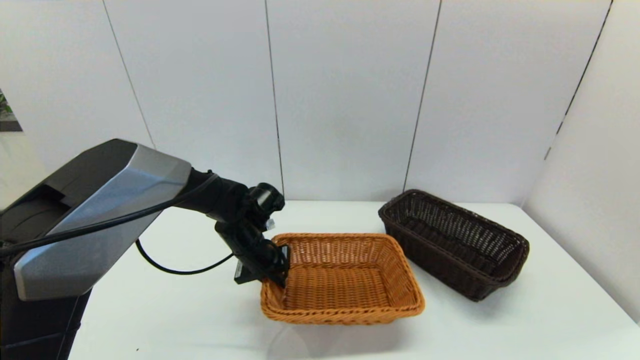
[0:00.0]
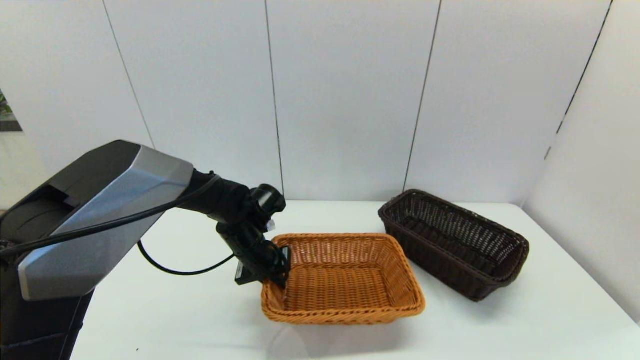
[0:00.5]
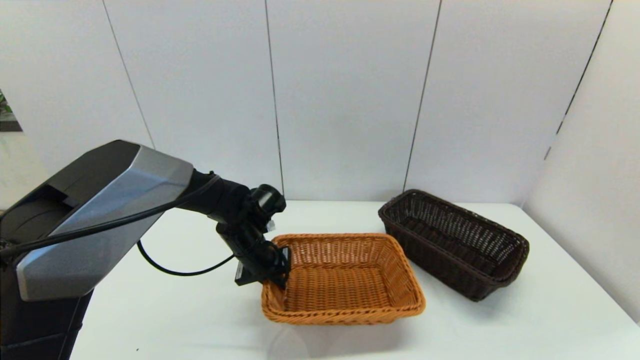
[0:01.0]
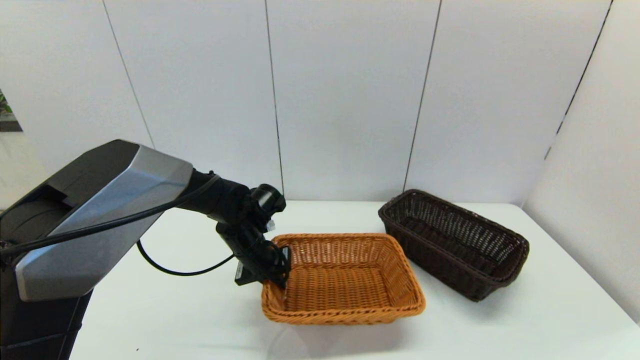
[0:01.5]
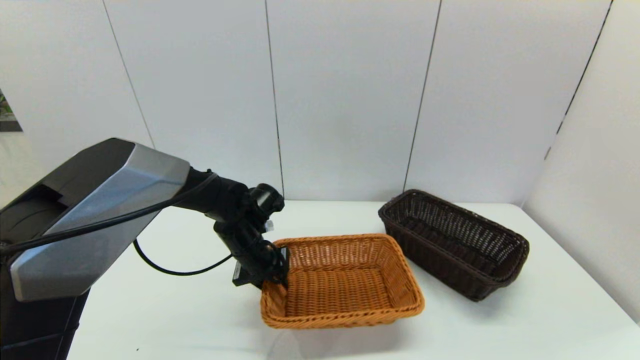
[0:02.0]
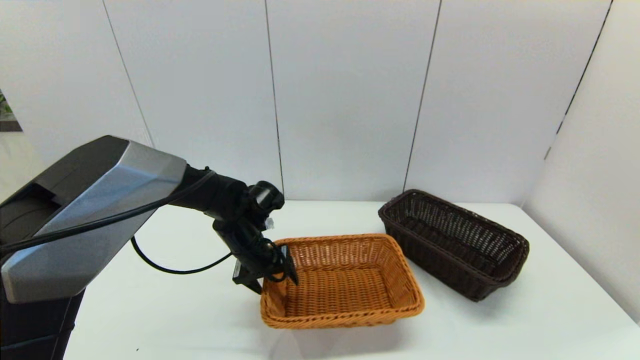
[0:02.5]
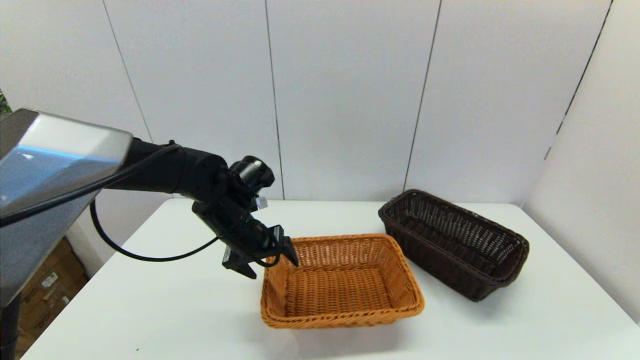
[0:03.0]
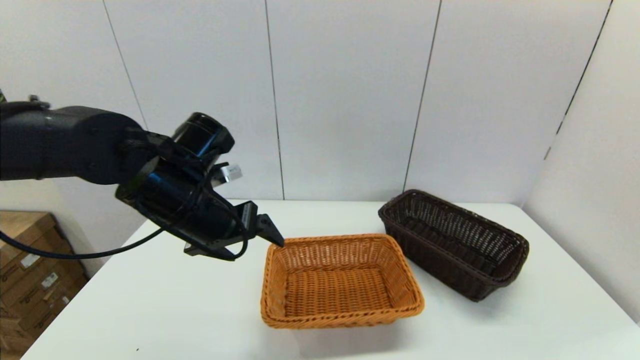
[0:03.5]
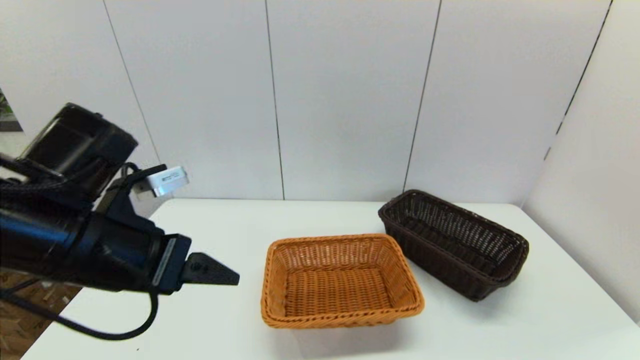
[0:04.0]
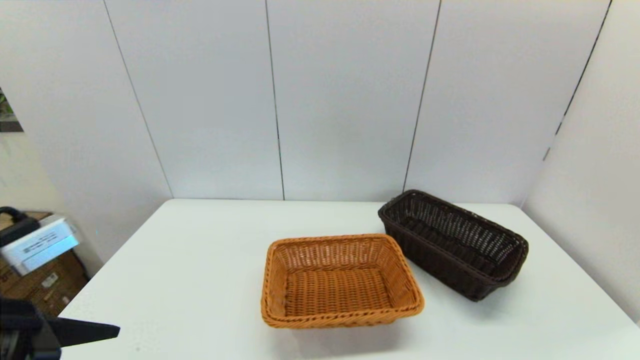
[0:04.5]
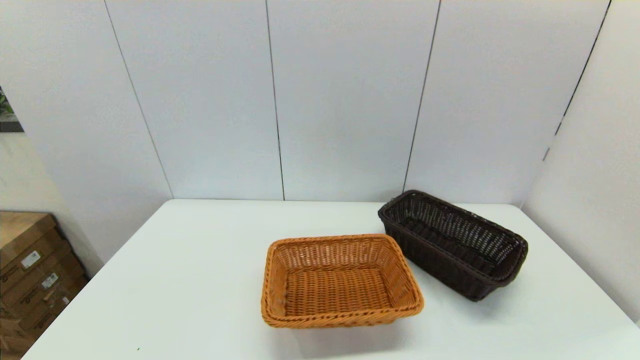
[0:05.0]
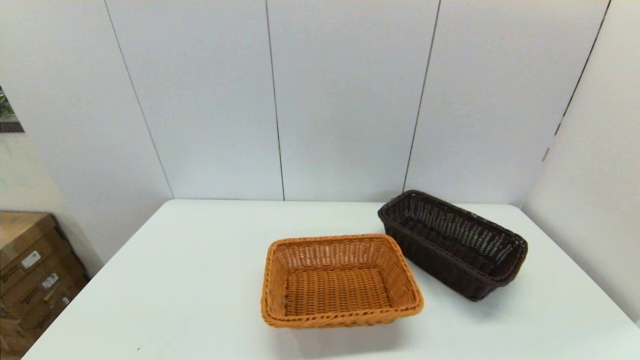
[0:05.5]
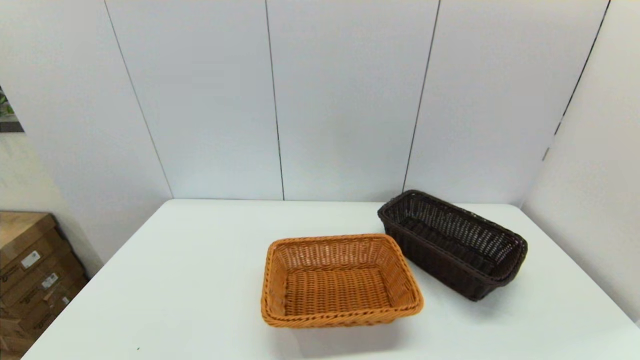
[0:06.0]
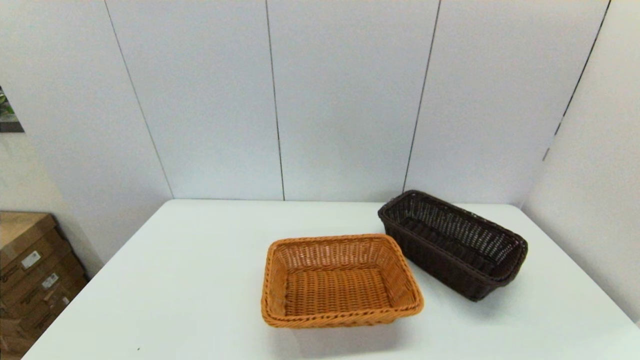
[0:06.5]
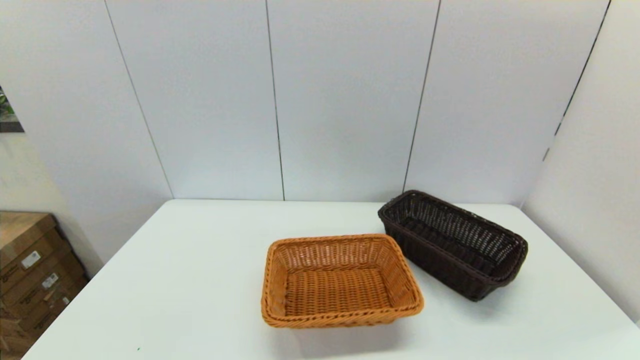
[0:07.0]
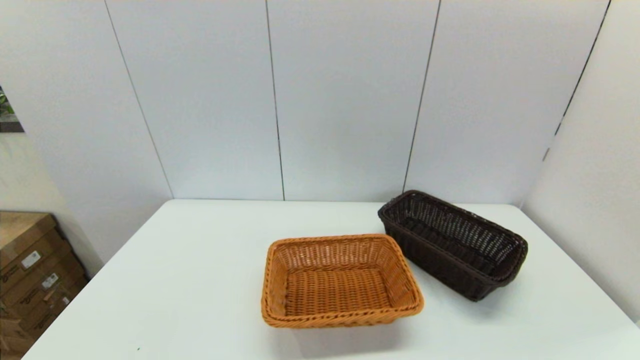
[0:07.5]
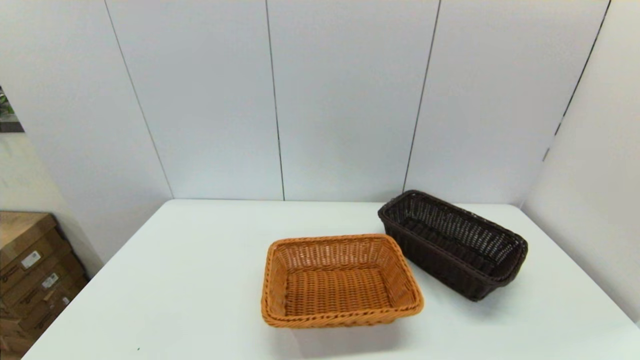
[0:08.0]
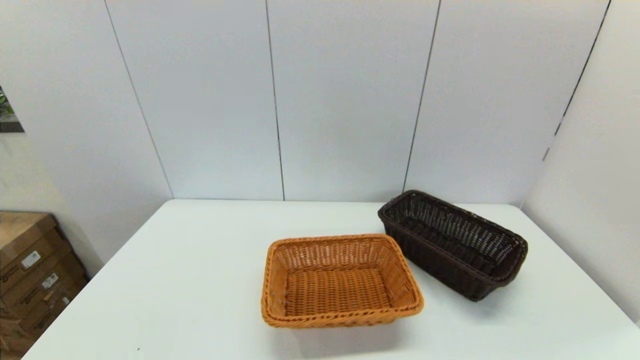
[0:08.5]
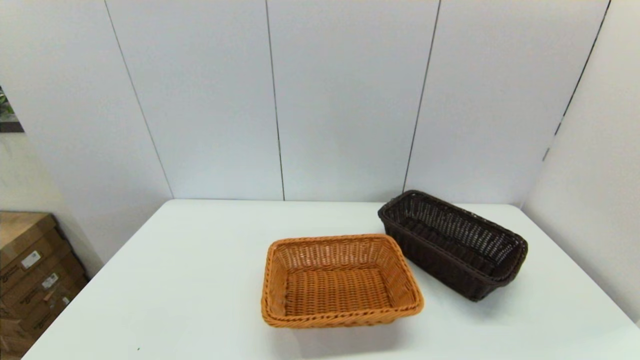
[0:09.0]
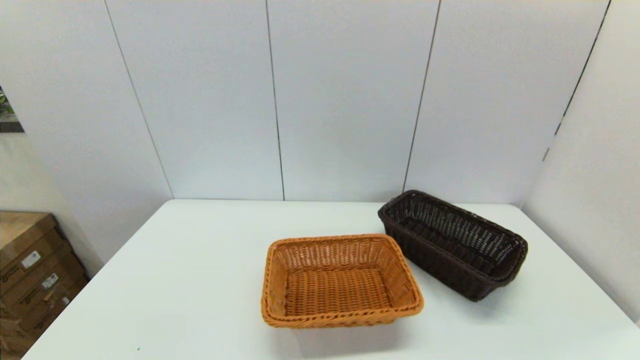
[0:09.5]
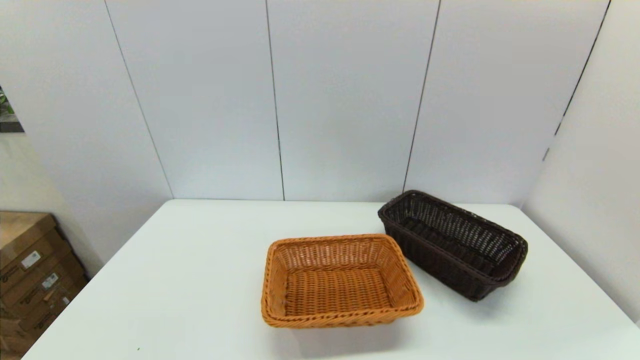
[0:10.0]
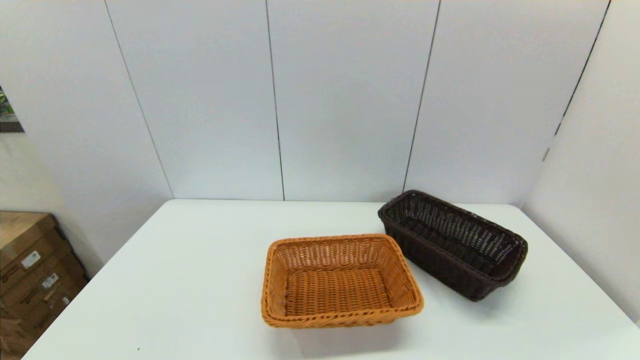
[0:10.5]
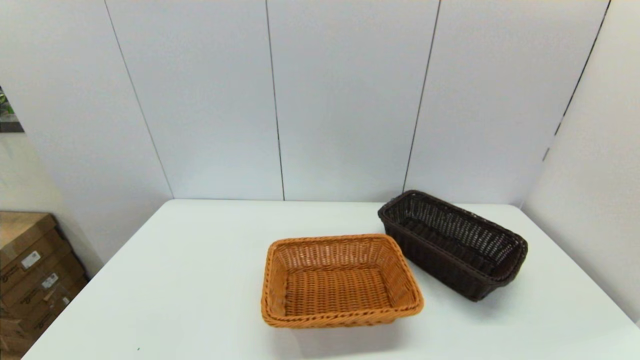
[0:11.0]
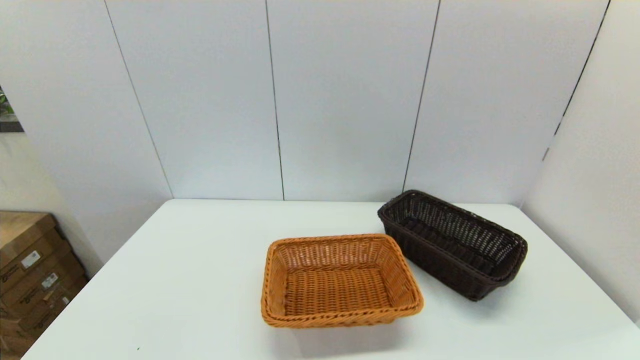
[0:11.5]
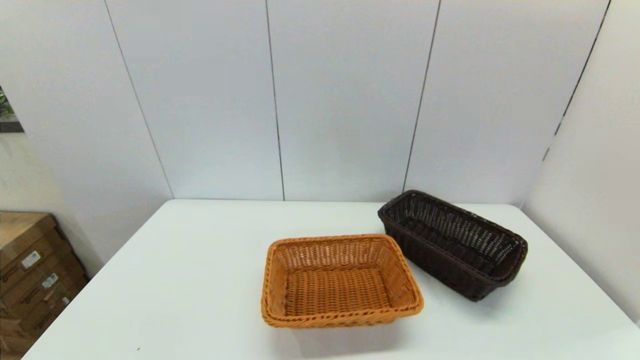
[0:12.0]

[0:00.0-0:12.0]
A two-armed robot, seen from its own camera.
Task of the whole recording: stack a basket on top of another basket.
Step, 0:00.0 to 0:03.0: Place the light basket on the middle of the table with the left gripper.
0:00.0 to 0:02.0: Neither gripper changes place.
0:02.0 to 0:04.0: The left gripper goes approximately 25 cm upward, backward and to the left, and opens up.
0:04.0 to 0:06.0: The left gripper moves backward and downward, some 25 cm.
0:08.0 to 0:10.0: Both grippers stay put.

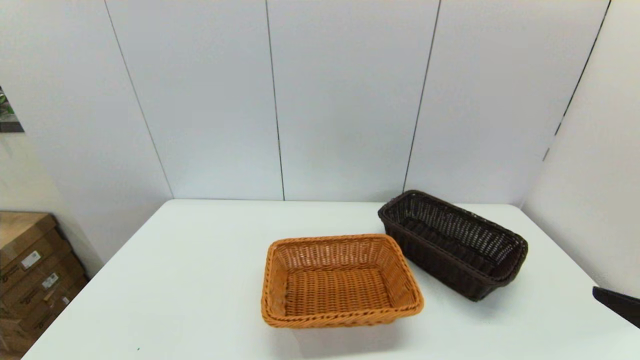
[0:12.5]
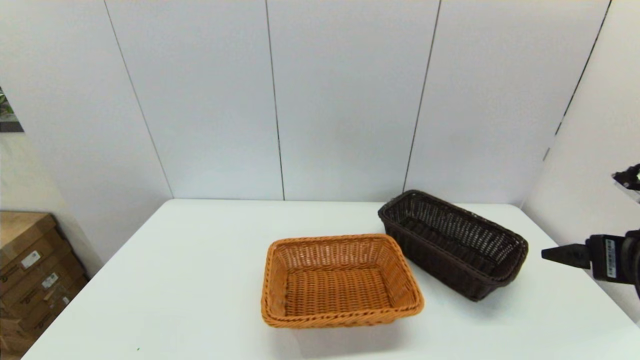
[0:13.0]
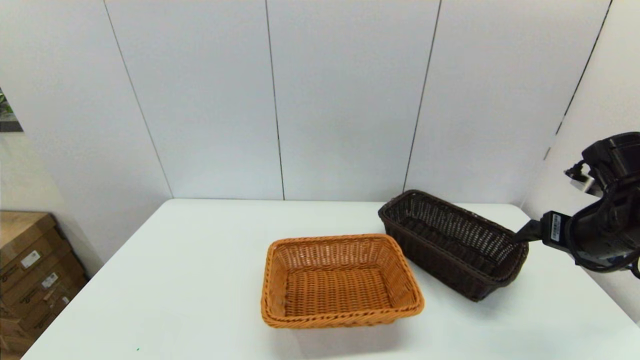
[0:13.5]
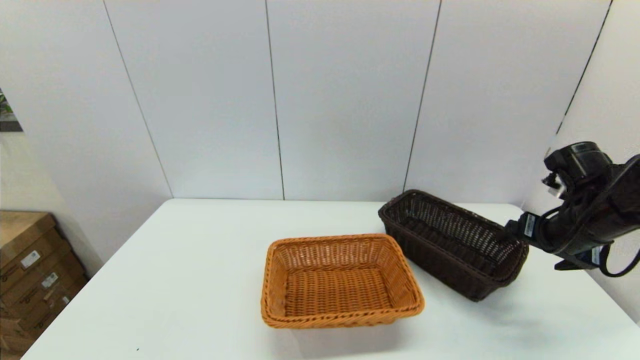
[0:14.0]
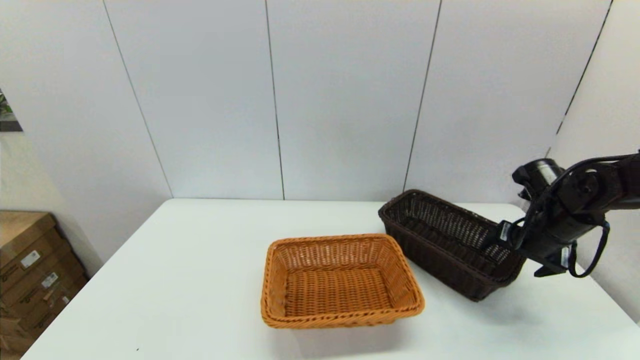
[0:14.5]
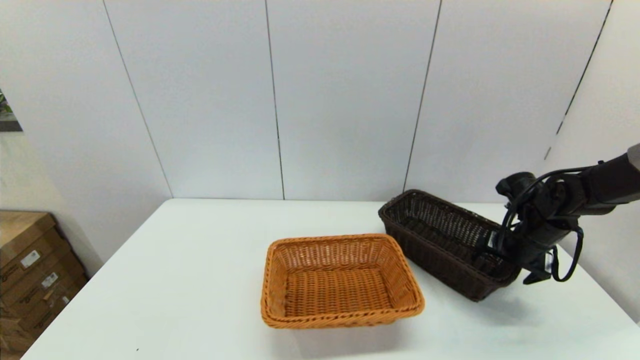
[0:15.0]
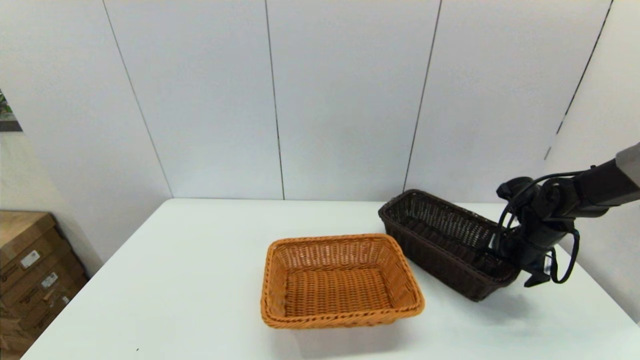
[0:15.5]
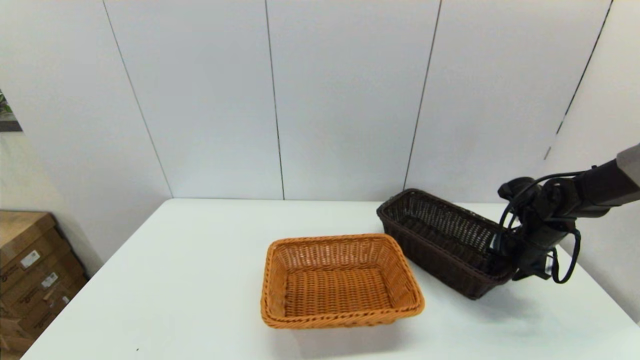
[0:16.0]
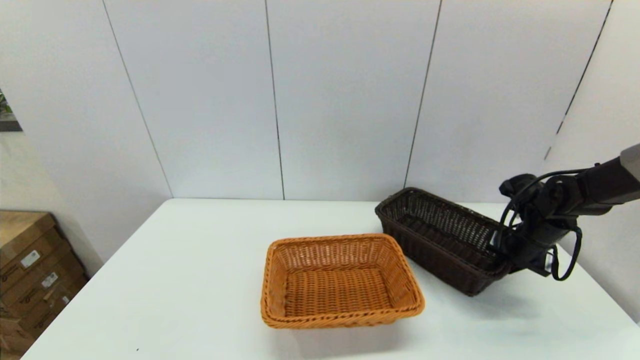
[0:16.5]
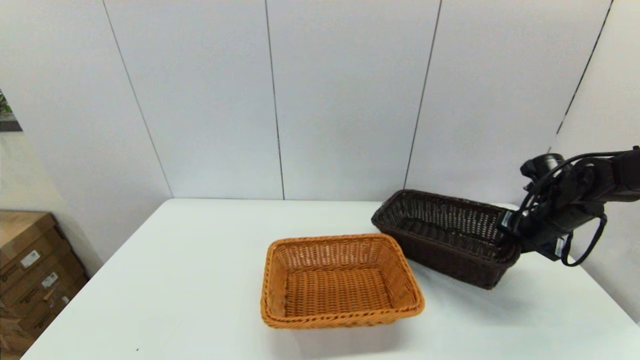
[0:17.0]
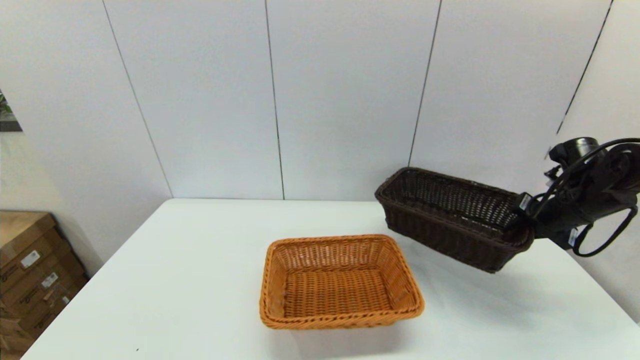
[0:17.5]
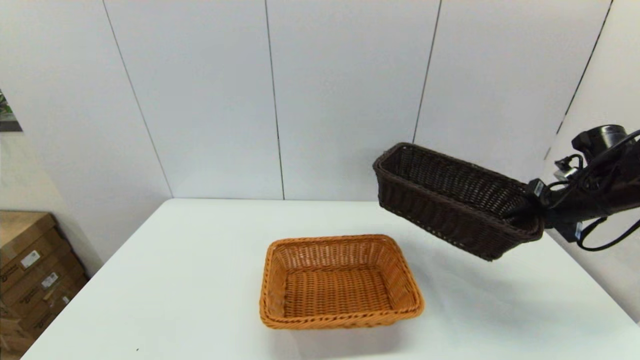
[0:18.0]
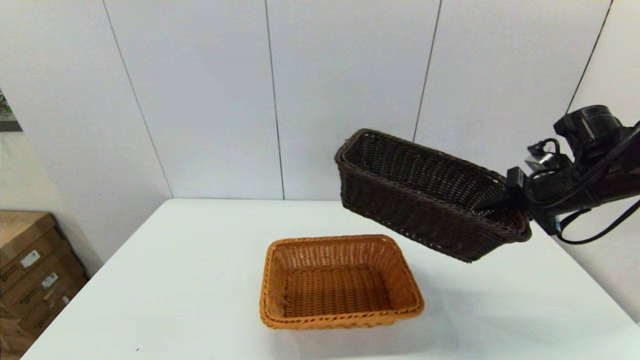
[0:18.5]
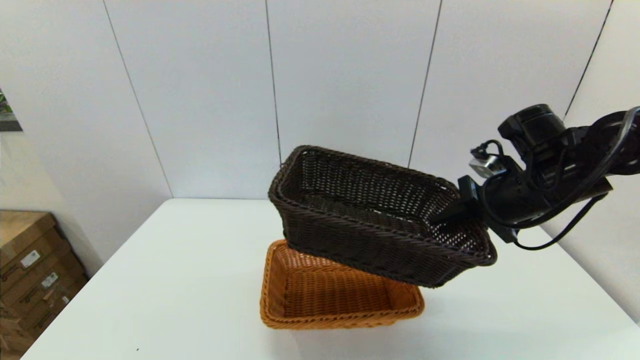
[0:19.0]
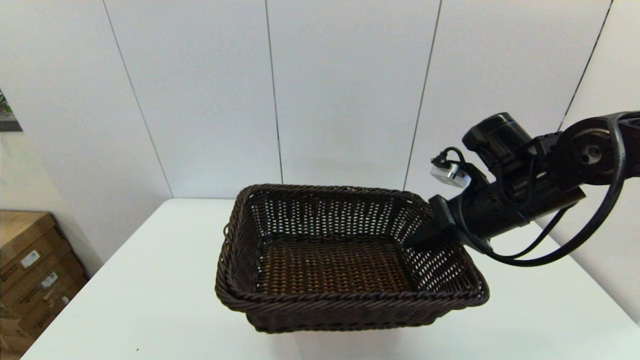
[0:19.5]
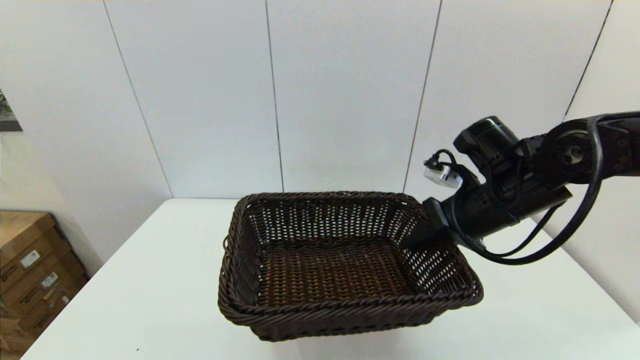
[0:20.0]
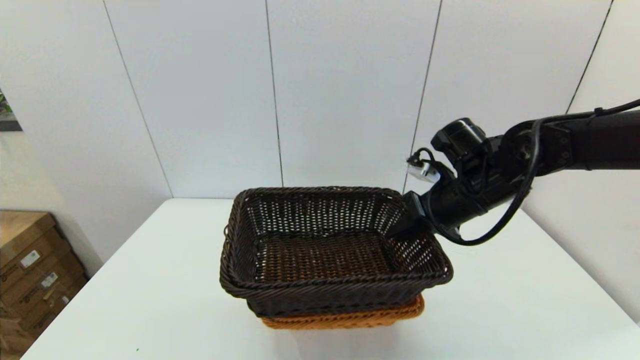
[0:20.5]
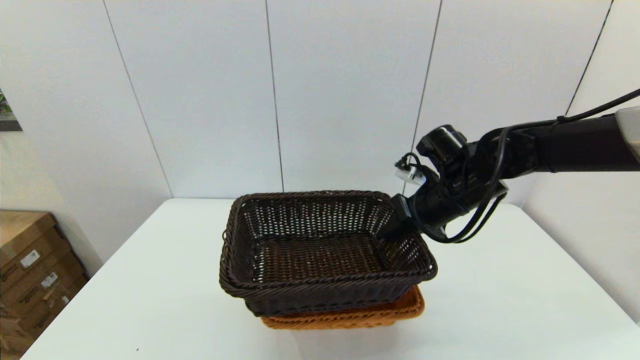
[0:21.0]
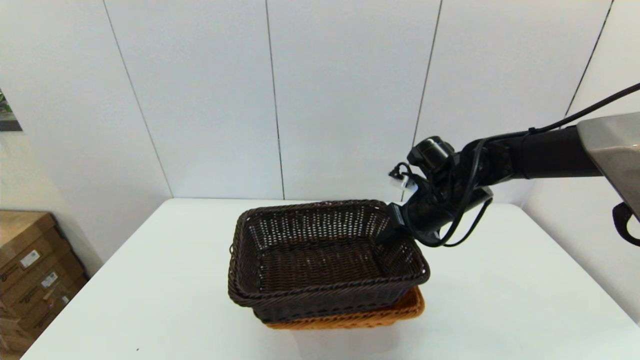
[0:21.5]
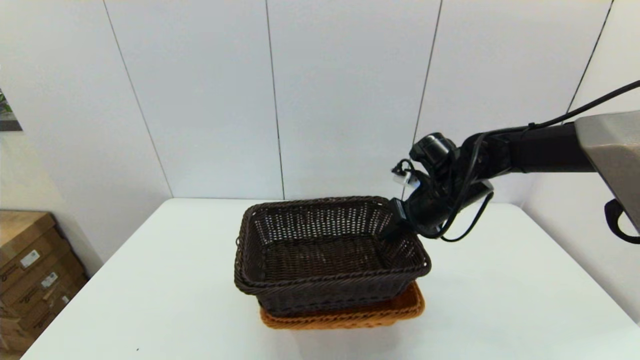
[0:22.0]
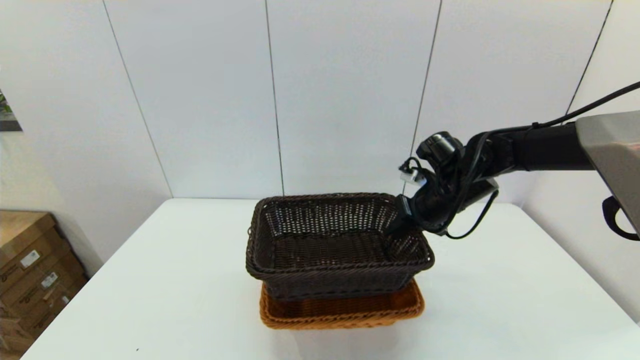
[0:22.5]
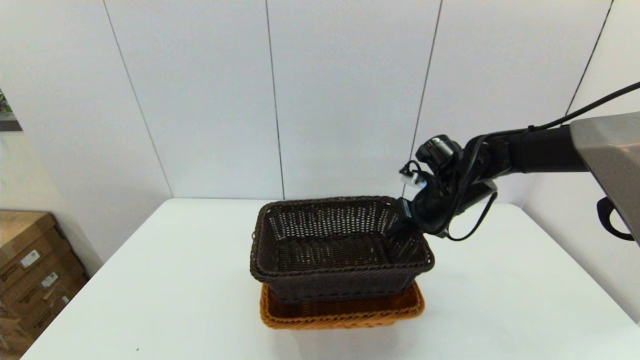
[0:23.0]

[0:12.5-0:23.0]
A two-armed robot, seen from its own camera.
Task of the whole recording: stack a basket on top of another basket.
Step, 0:12.5 to 0:16.0: Grasp the dark basket with the right gripper.
0:12.5 to 0:14.5: The right gripper is displaced forward and downward by about 25 cm.
0:14.5 to 0:16.5: The right gripper moves some 5 cm, and closes up.
0:16.5 to 0:19.0: The right gripper travels upward, to the left and backward by about 20 cm.
0:19.0 to 0:21.0: The right gripper shifts roughly 5 cm to the left.
0:21.0 to 0:23.0: There are only small adjustments of the grippers.
